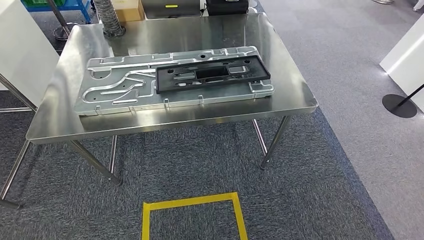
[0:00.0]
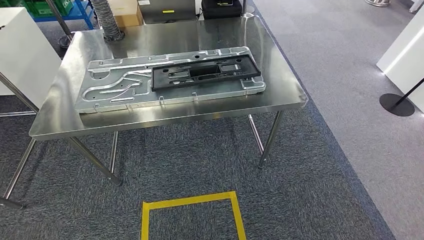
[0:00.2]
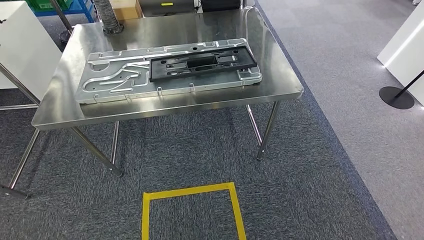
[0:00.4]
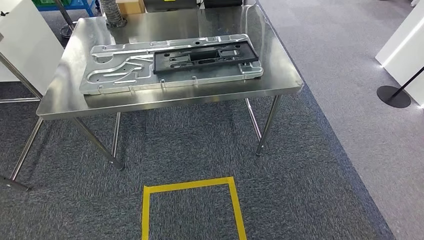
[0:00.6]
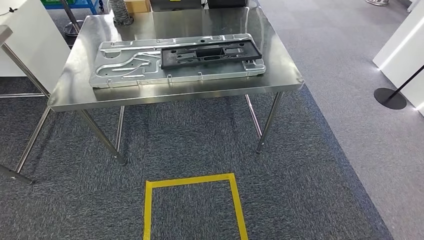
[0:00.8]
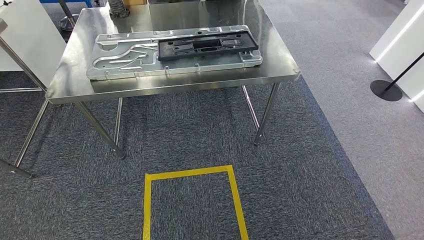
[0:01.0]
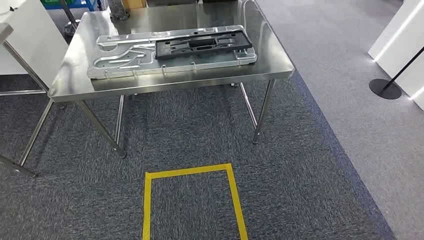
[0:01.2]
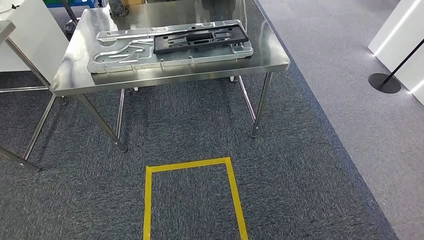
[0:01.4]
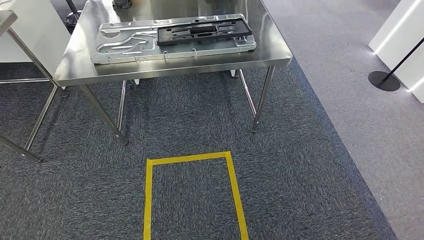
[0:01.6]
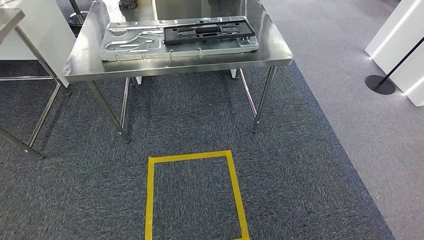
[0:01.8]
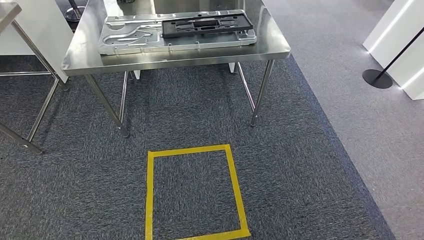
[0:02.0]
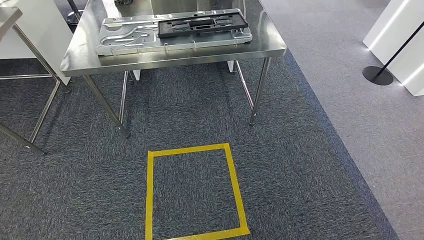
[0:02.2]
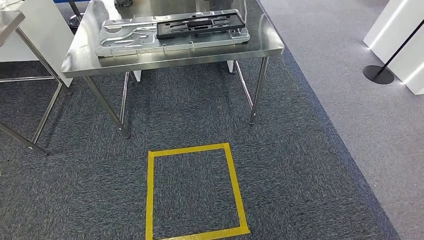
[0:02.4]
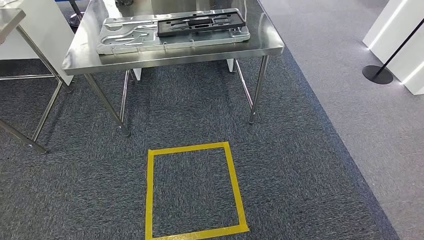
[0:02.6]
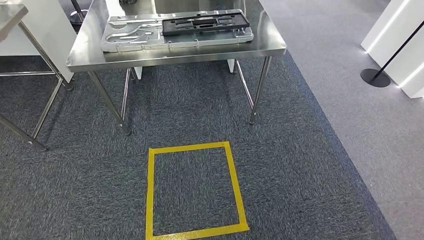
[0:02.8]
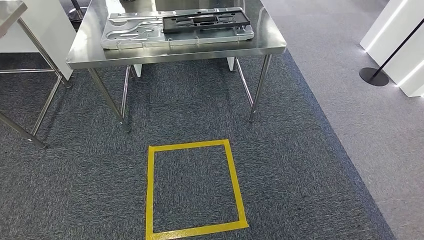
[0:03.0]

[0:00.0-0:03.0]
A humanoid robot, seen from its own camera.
Step, 0:00.0 to 0:03.0: Move to the initial position of the shelf.
0:01.6 to 0:03.0: The two hands keep their place.
